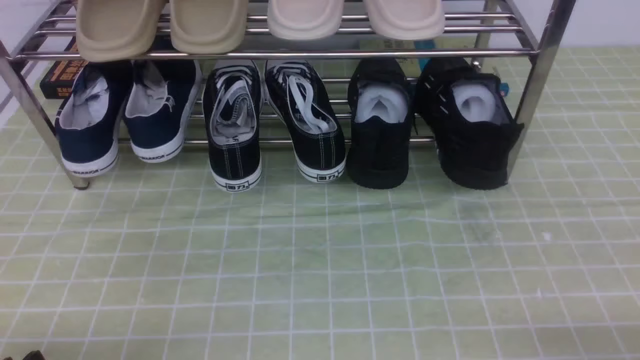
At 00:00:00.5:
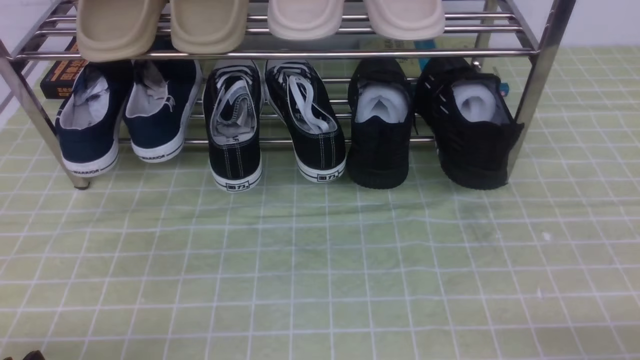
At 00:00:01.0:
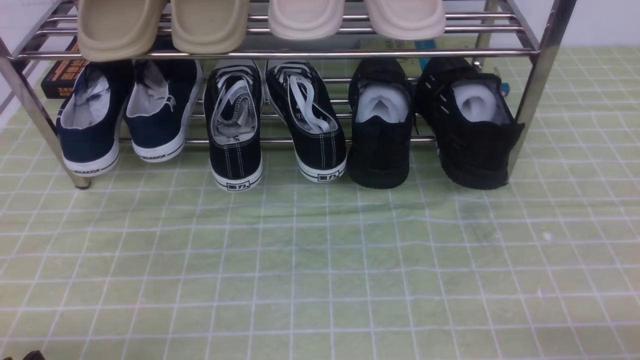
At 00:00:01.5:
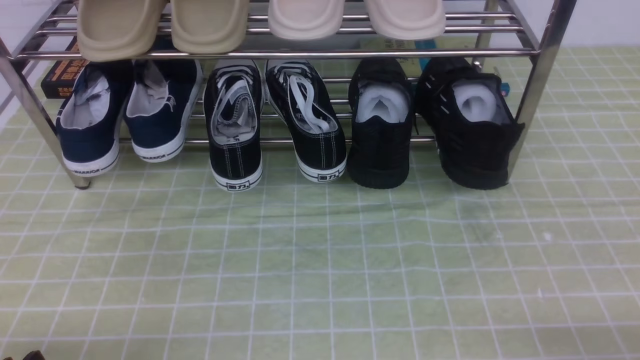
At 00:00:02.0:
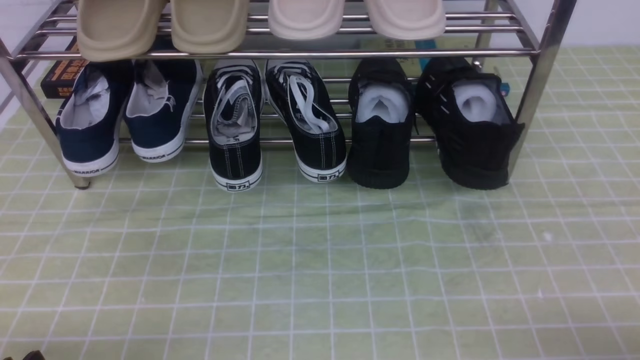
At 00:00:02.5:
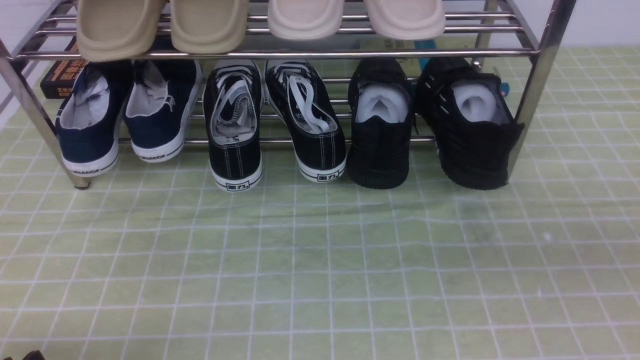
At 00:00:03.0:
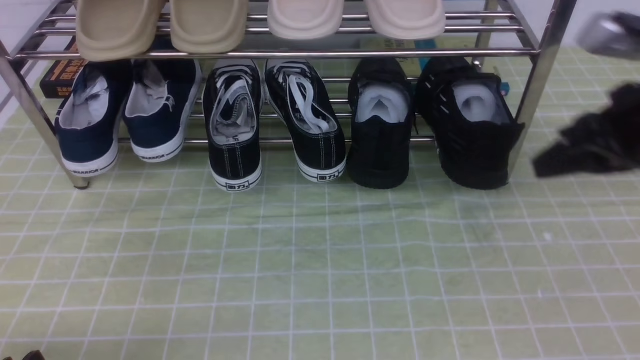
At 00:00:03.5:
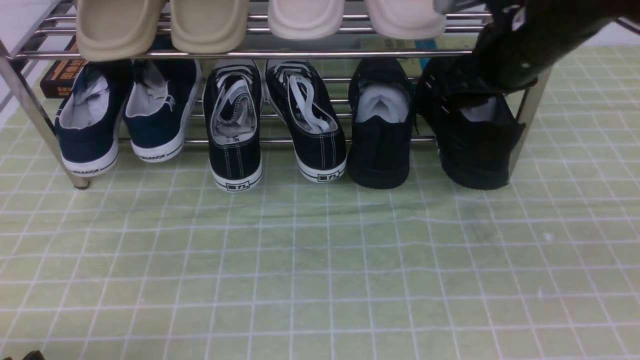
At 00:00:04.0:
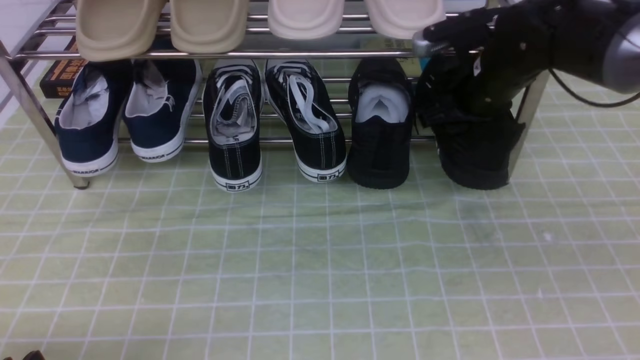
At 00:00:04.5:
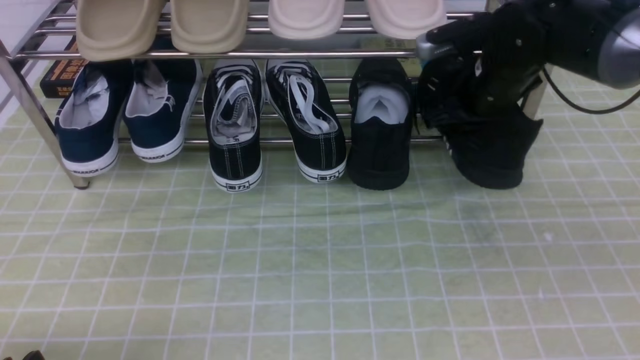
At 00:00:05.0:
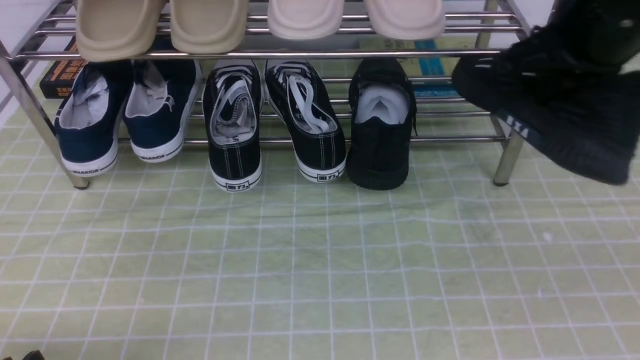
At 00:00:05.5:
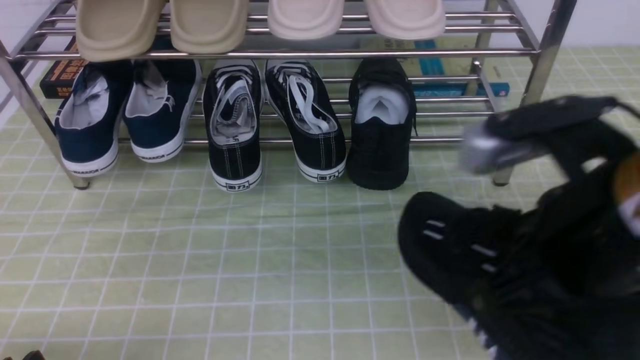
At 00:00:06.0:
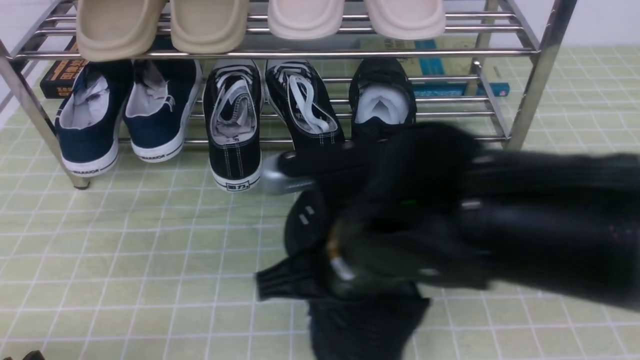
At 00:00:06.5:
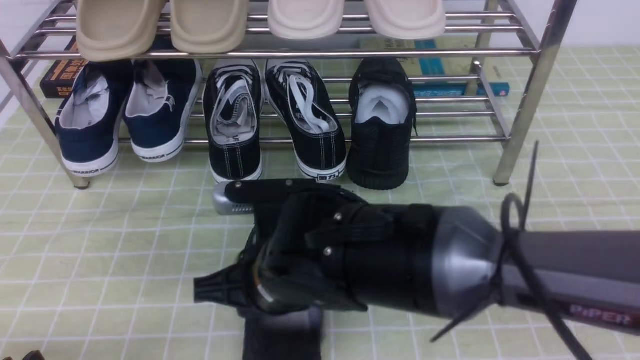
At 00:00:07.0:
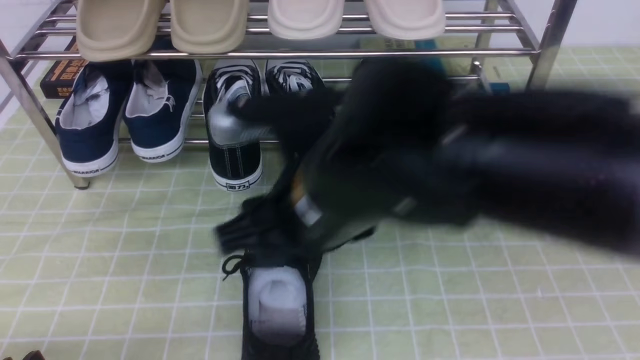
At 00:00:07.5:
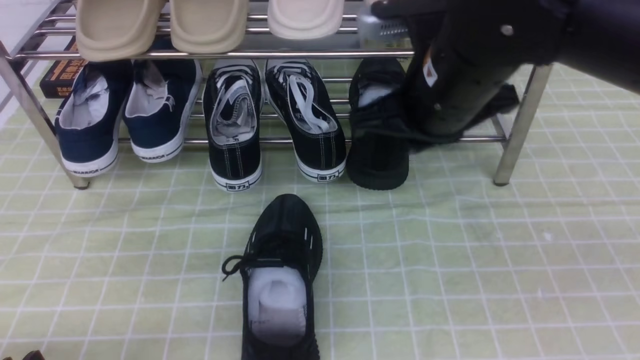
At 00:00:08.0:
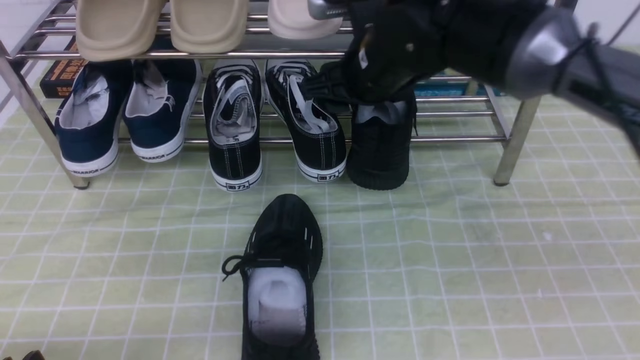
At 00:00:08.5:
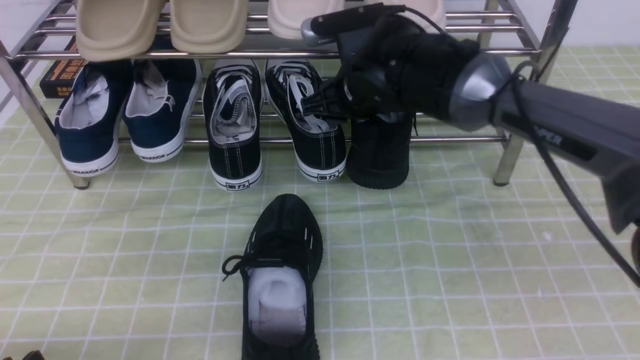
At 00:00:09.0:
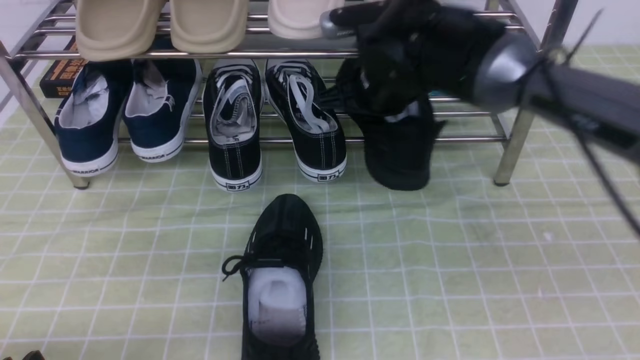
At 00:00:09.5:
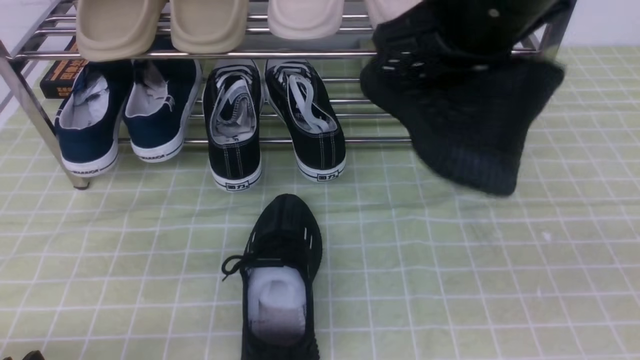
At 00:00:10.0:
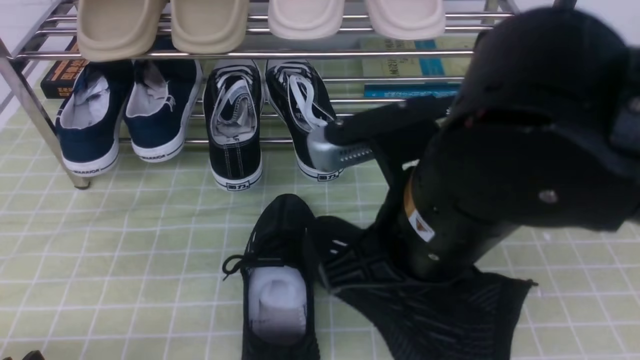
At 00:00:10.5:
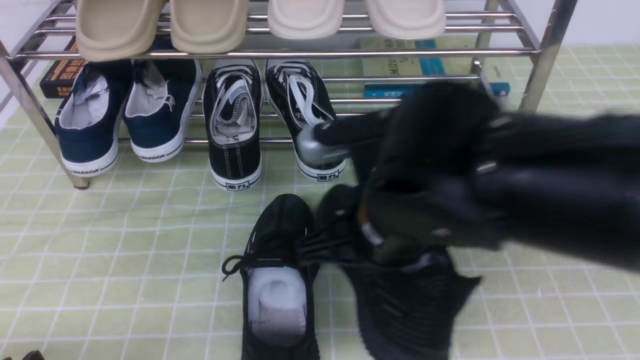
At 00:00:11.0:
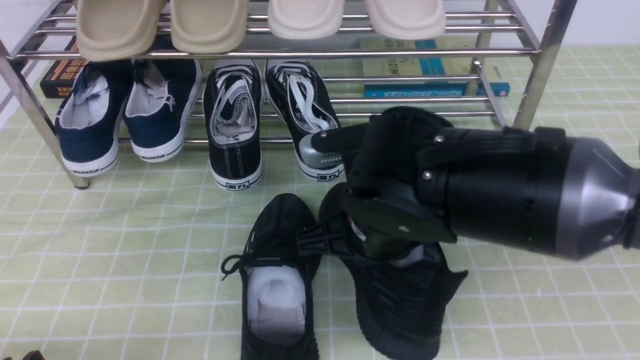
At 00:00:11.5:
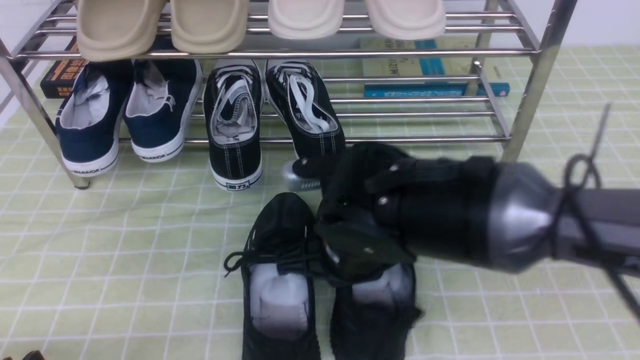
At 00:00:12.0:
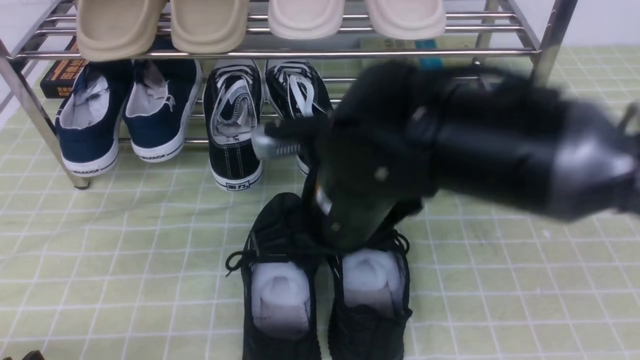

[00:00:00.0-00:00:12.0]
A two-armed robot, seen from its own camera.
Step, 00:00:00.0 to 00:00:04.0: use the right arm to clamp a shoe on the right side of the shoe rack.
Step, 00:00:04.5 to 00:00:06.5: use the right arm to take out the clamped shoe from the shoe rack and put it down.
Step, 00:00:07.0 to 00:00:08.5: use the right arm to clamp a shoe on the right side of the shoe rack.
Step, 00:00:09.0 to 00:00:12.0: use the right arm to take out the clamped shoe from the shoe rack and put it down.
00:00:02.0 to 00:00:04.0: The right gripper is displaced forward by about 35 cm, and closes and opens again.
00:00:04.0 to 00:00:06.0: The right gripper shifts approximately 30 cm backward and to the left, and closes.
00:00:06.0 to 00:00:08.0: The right gripper goes about 20 cm forward, and opens its fingers.
00:00:08.0 to 00:00:10.0: The right gripper heads backward, covering some 20 cm, and closes up.
00:00:10.0 to 00:00:12.0: The right gripper moves about 10 cm downward and comes back, and opens up.

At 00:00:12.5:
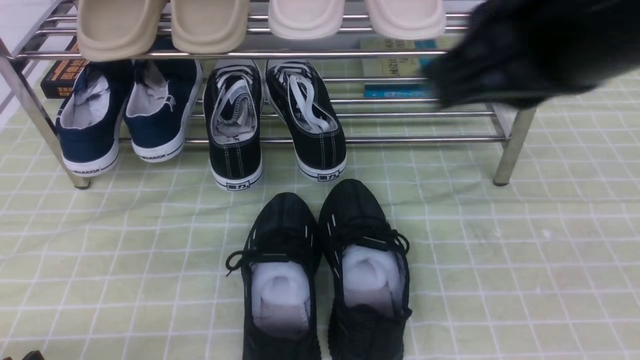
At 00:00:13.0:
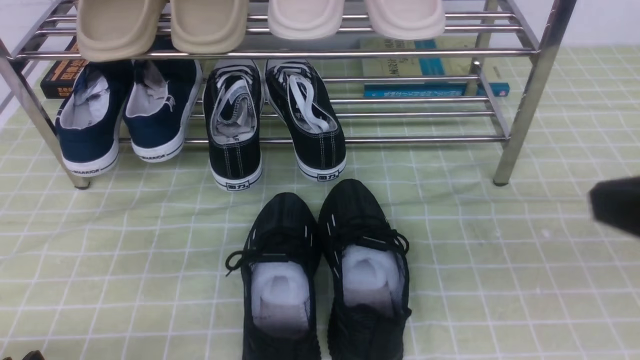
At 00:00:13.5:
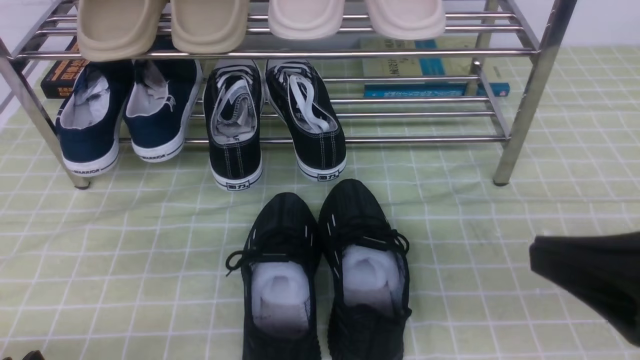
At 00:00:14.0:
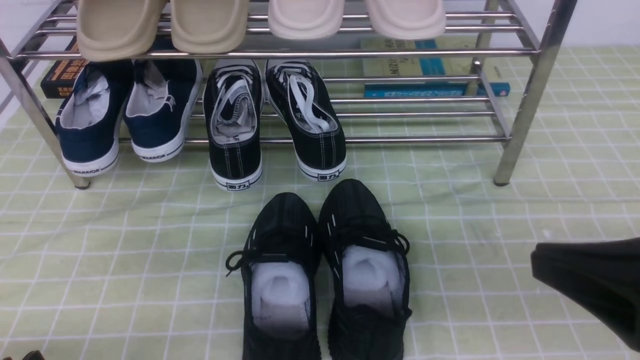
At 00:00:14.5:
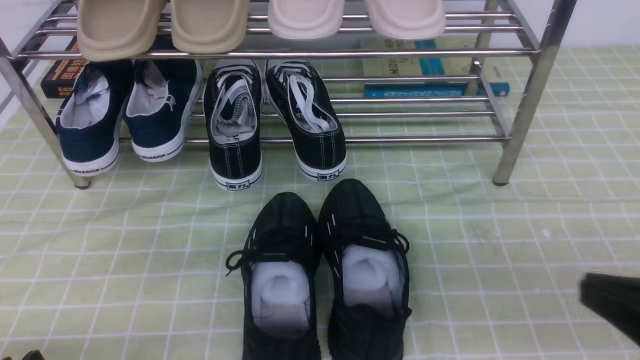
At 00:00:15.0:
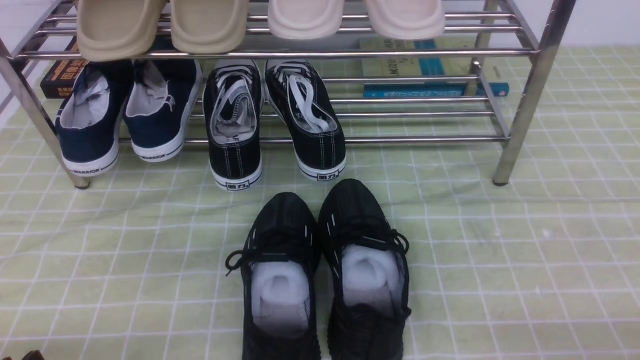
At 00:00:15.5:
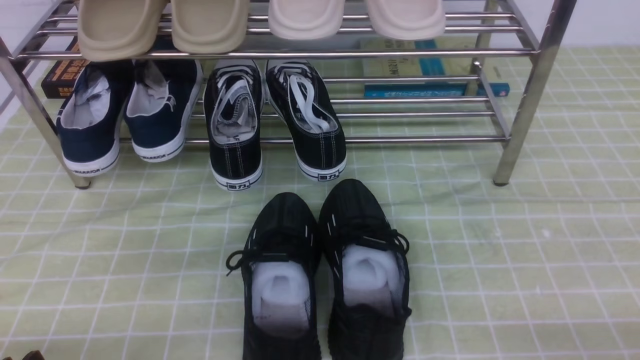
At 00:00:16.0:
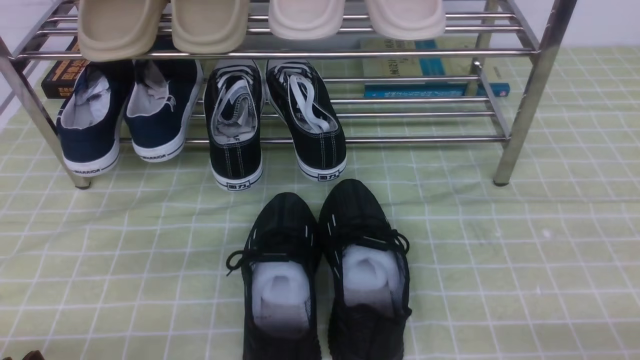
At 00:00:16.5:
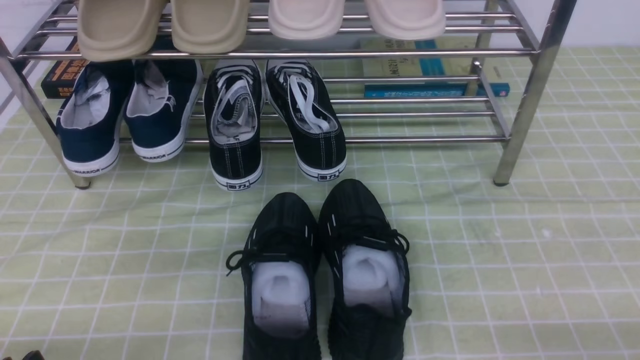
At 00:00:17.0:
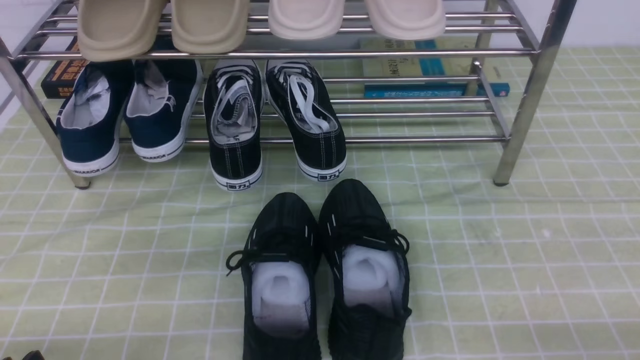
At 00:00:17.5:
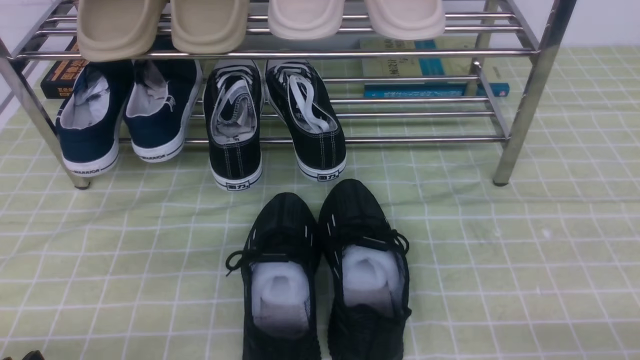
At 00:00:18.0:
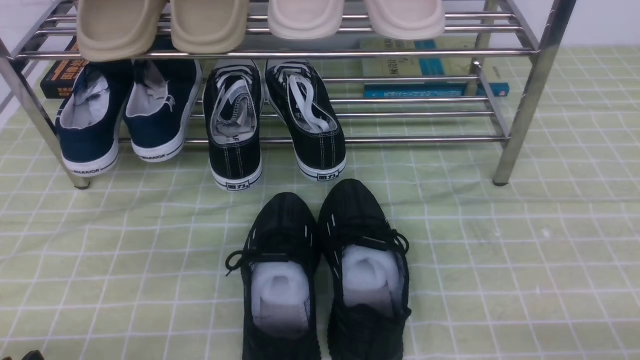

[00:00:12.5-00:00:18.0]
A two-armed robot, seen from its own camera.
00:00:12.5 to 00:00:14.5: The right gripper is displaced downward, to the right and backward by approximately 25 cm.
00:00:14.5 to 00:00:16.0: The right gripper goes about 10 cm downward and to the right.
00:00:16.0 to 00:00:18.0: Both grippers stay put.
